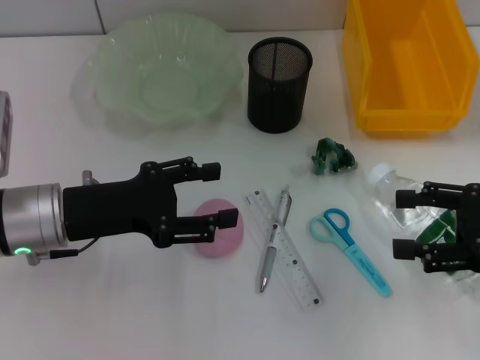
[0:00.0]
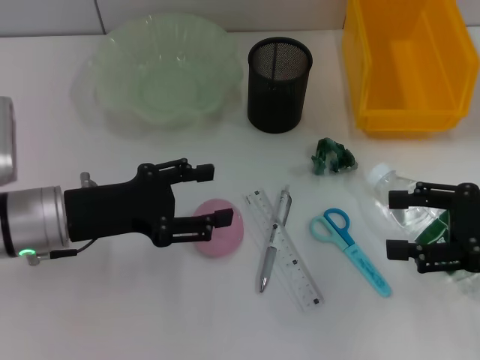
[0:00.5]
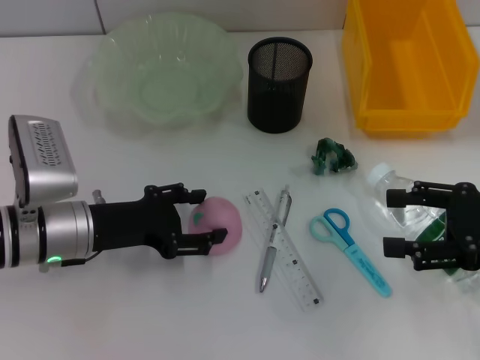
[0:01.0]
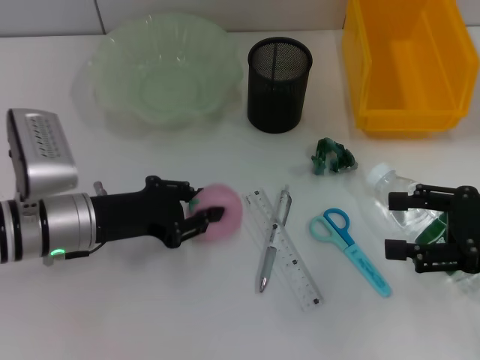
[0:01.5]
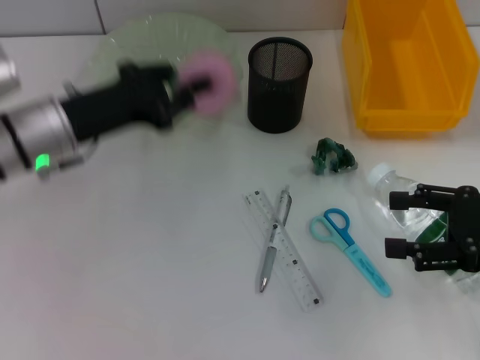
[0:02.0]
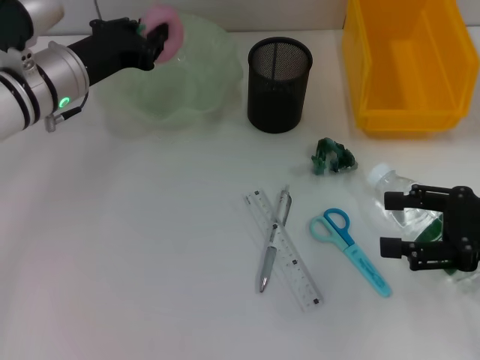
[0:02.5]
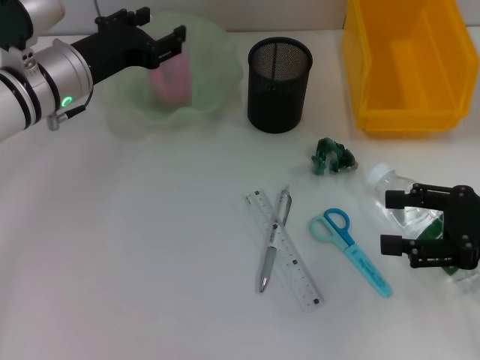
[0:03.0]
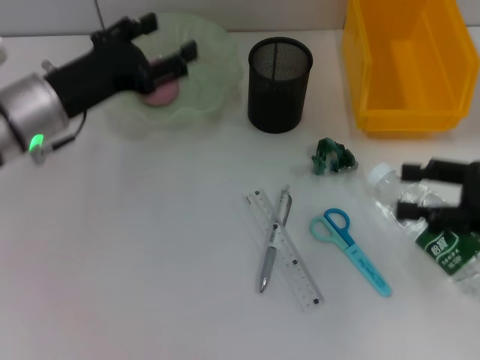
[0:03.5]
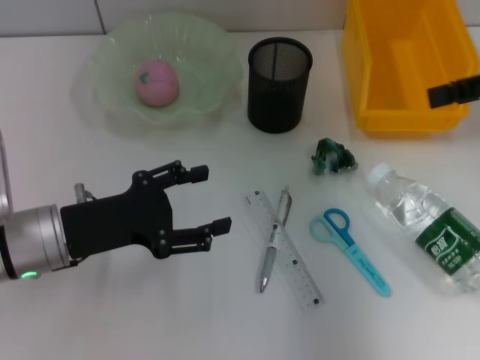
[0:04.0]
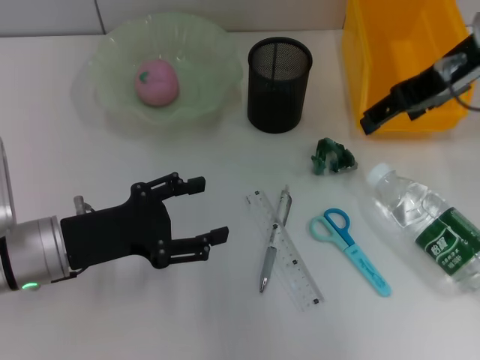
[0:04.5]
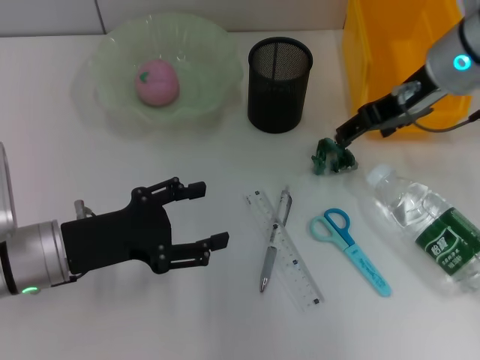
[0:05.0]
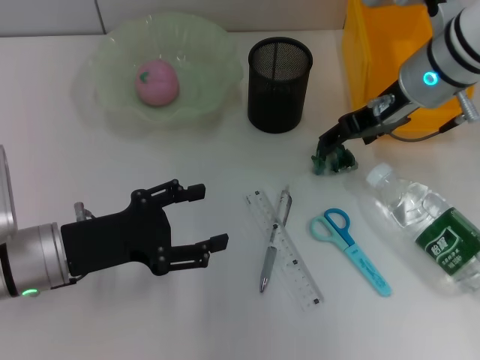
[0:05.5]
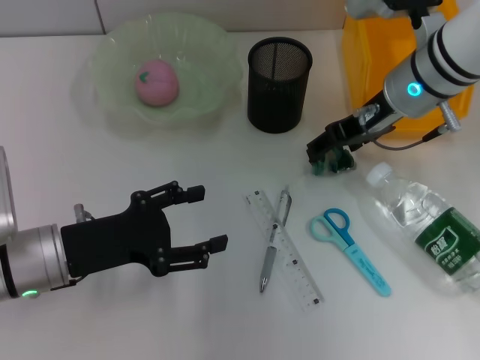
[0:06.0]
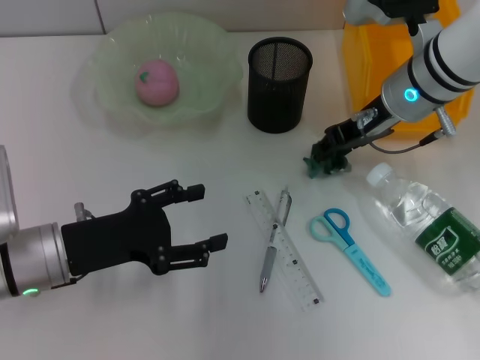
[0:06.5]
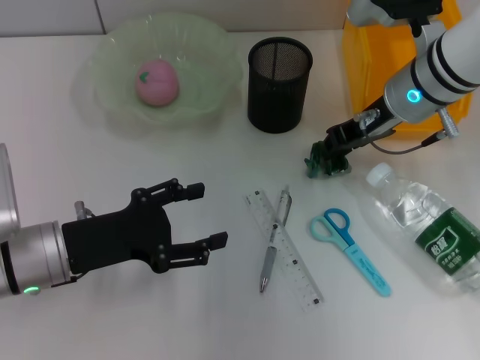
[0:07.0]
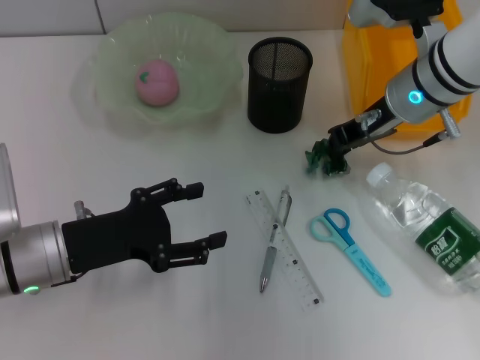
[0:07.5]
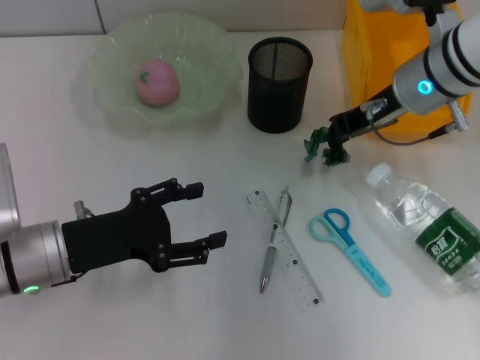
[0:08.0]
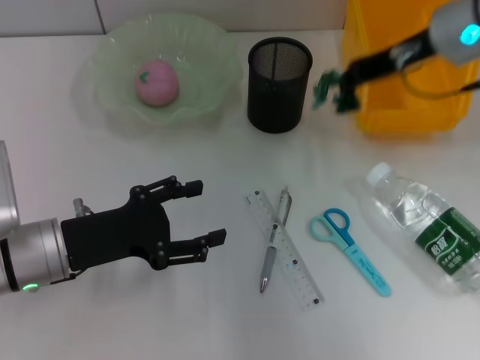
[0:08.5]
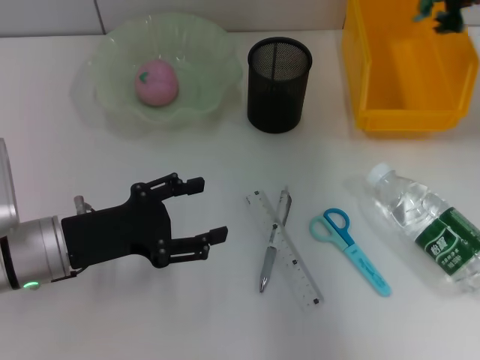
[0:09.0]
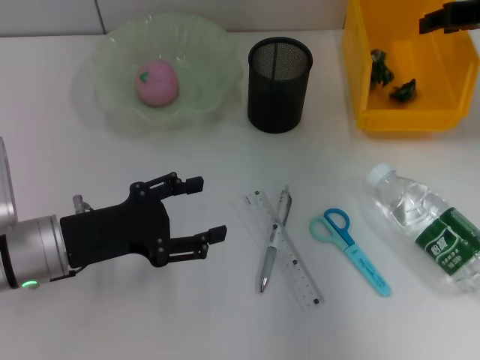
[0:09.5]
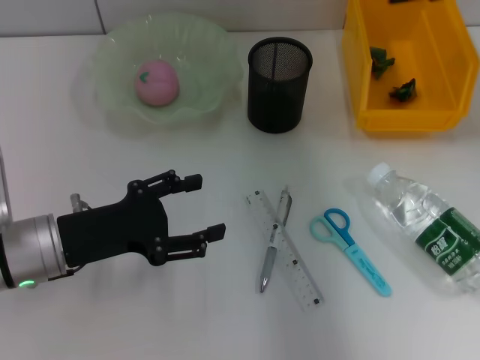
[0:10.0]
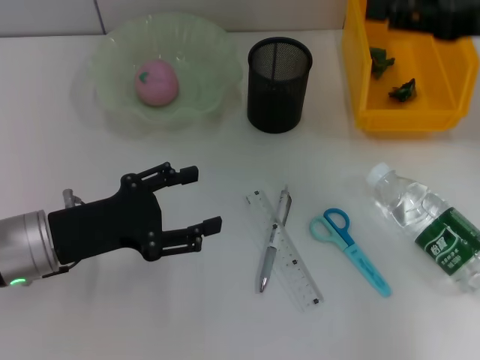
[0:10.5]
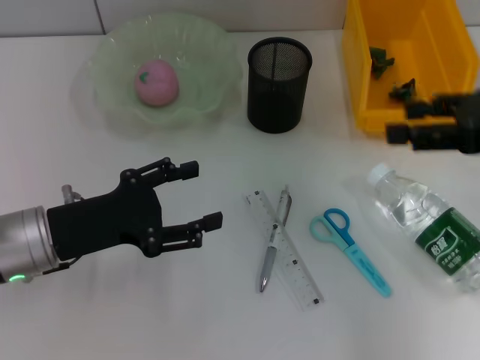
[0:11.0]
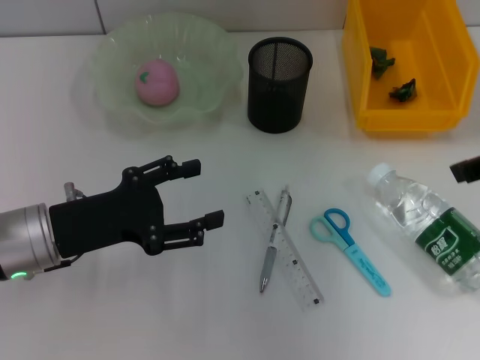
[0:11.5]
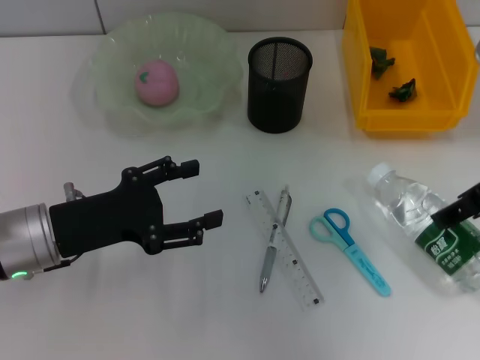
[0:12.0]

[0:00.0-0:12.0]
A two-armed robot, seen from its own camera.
Step, 0:00.0 to 0:01.0: Grab the peach with the left hand.
Step, 0:01.5 to 0:03.0: Place the peach into the fruit bowl with the left hand.
Step, 0:03.5 to 0:06.5: Grab the plastic with the right hand.
Step, 0:07.0 to 0:09.5: Place the plastic into the trash can with the right hand.
0:00.0 to 0:02.0: The left gripper closes up.
0:02.0 to 0:04.0: The right gripper moves upward and forward, some 15 cm, while the left gripper heads backward, covering some 5 cm, and opens up.
0:04.0 to 0:06.0: The right gripper moves to the left, downward and forward, some 20 cm.
0:06.0 to 0:08.0: The right gripper closes its fingers.
0:08.0 to 0:10.0: The right gripper heads upward and to the right, covering approximately 15 cm, and opens up.
0:10.0 to 0:12.0: The right gripper travels backward by approximately 10 cm.

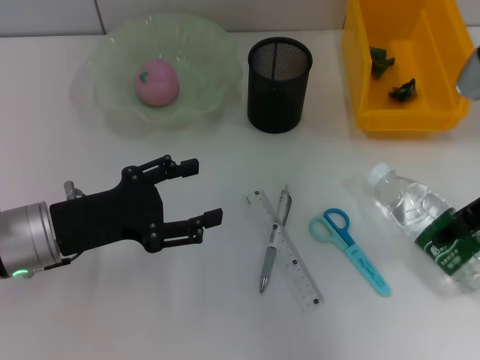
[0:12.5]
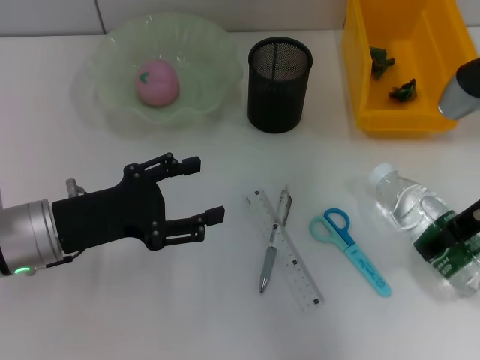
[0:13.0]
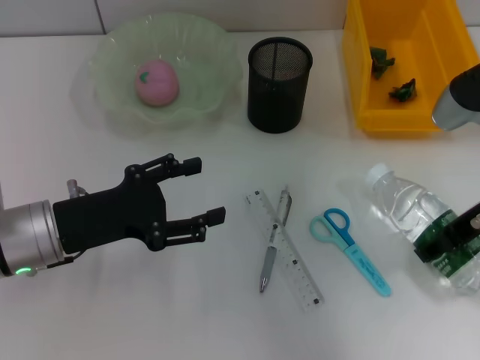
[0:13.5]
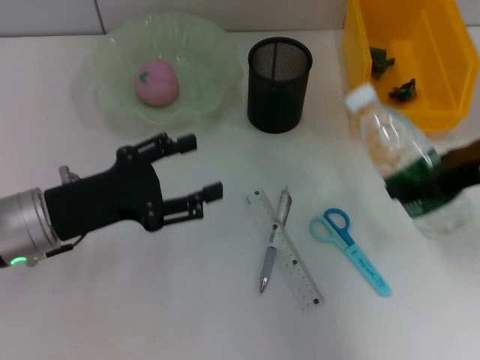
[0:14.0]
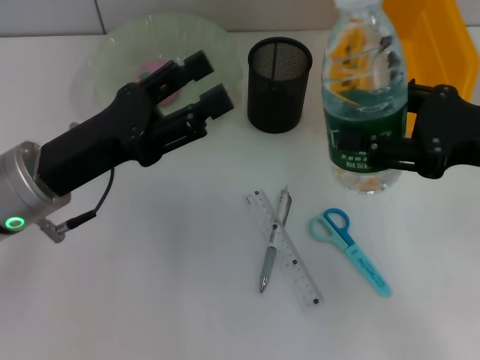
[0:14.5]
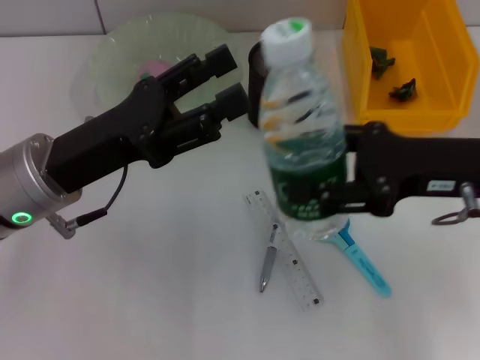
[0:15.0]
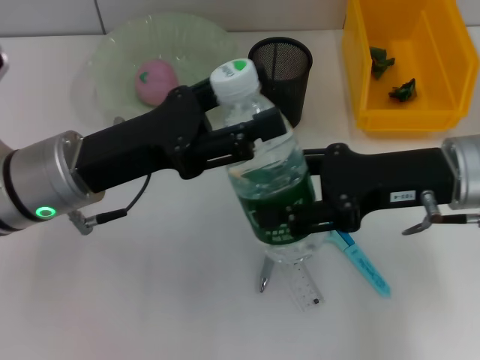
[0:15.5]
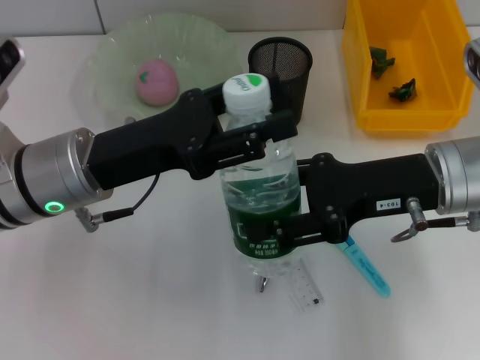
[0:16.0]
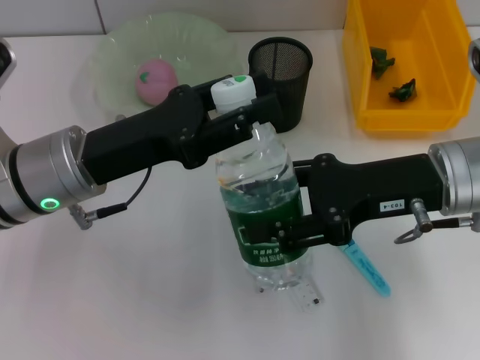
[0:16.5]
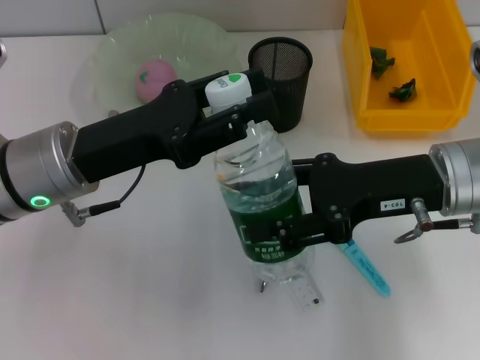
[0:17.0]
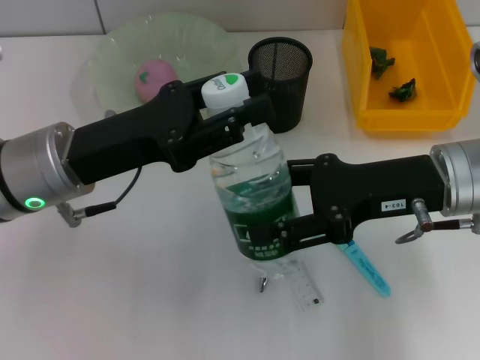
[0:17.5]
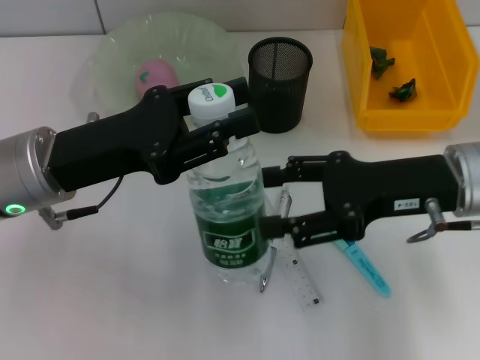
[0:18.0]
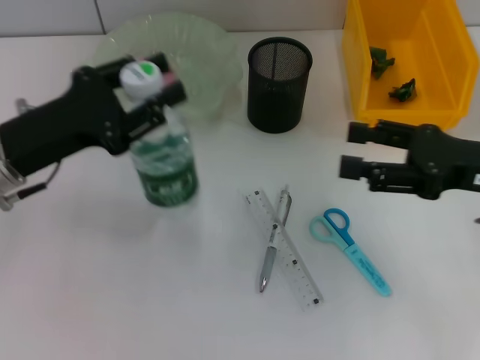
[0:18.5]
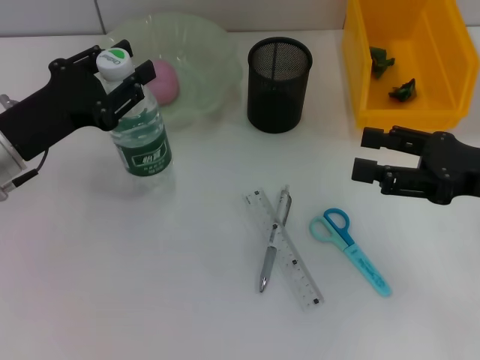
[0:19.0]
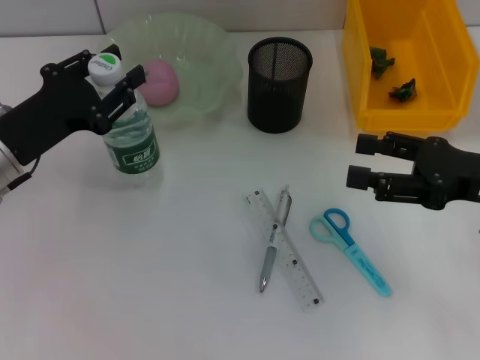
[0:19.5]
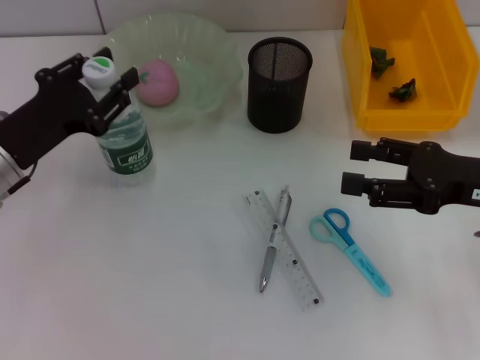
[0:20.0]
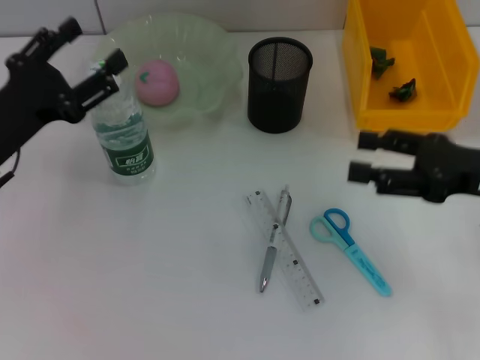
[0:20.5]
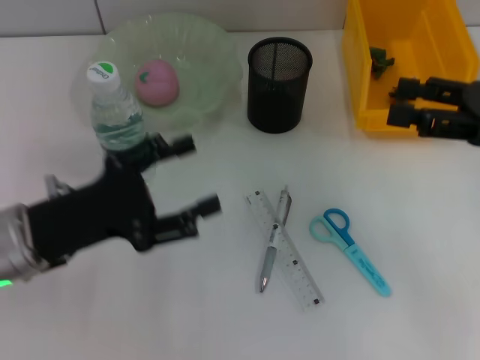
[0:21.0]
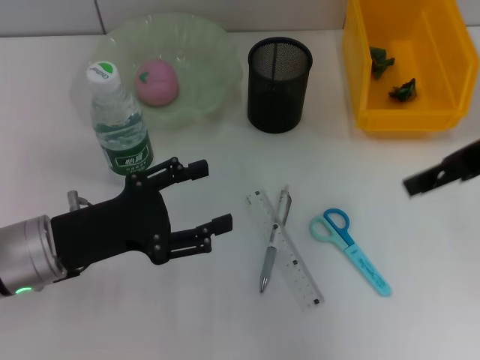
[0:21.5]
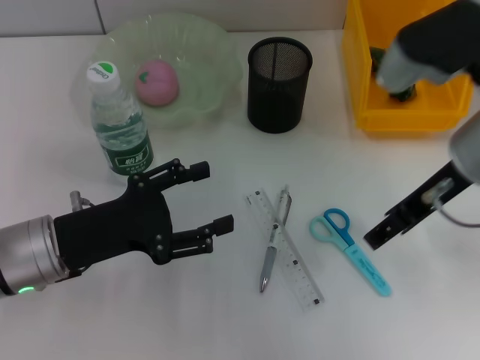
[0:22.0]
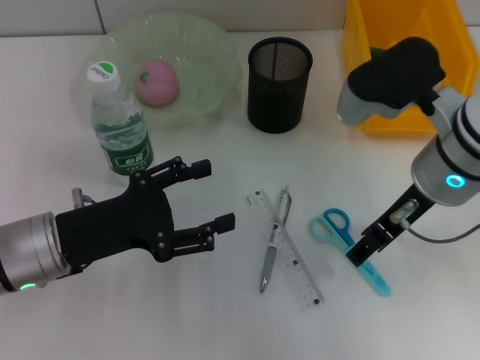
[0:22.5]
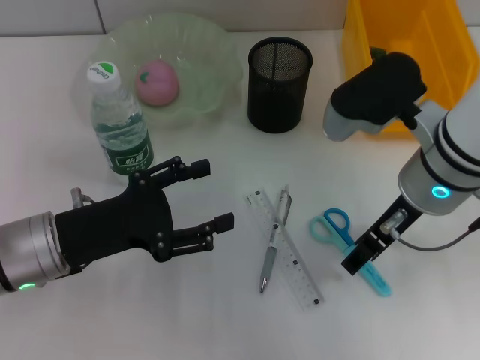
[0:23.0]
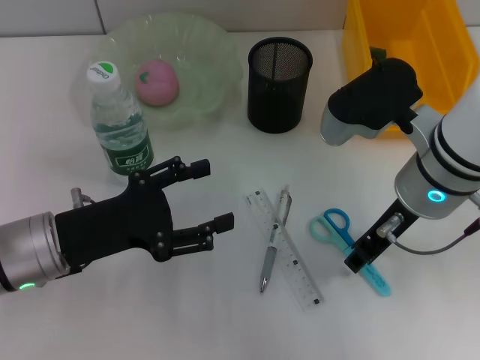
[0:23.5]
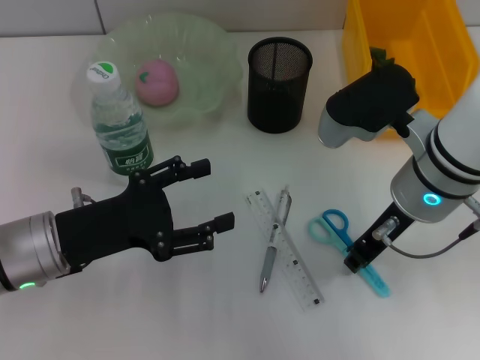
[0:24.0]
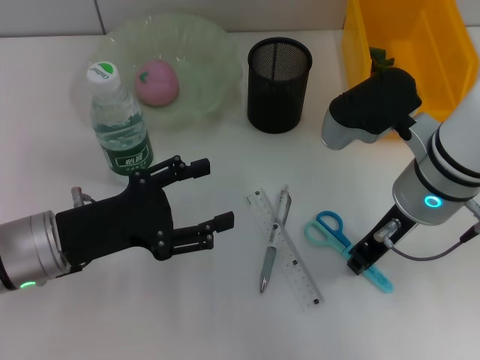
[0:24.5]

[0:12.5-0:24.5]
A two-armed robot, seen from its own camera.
Step, 0:14.0 to 0:17.5: Pass the water bottle from the right hand to the left hand.
Step, 0:18.0 to 0:20.0: Place the water bottle on the table with the left hand.
0:14.5 to 0:16.5: The right gripper moves to the left, approximately 5 cm, while the left gripper closes its fingers.
0:16.5 to 0:18.5: The right gripper travels to the right by approximately 10 cm; the left gripper heads to the left, covering approximately 5 cm.
0:18.5 to 0:20.5: The left gripper opens its fingers.
0:20.5 to 0:22.5: The left gripper moves approximately 5 cm. The right gripper travels to the left by approximately 15 cm.
0:22.5 to 0:24.5: The right gripper closes up.

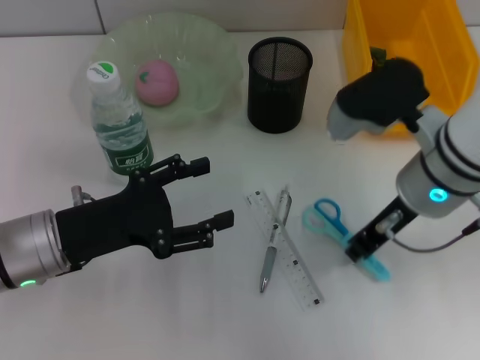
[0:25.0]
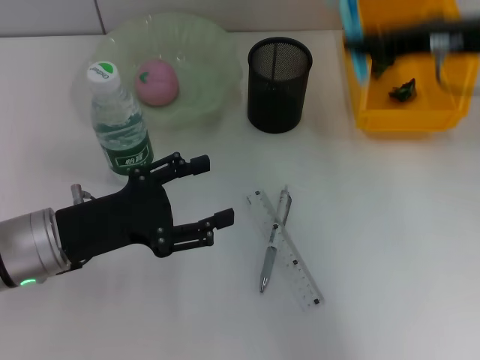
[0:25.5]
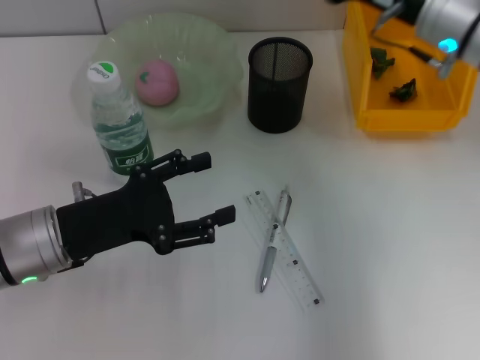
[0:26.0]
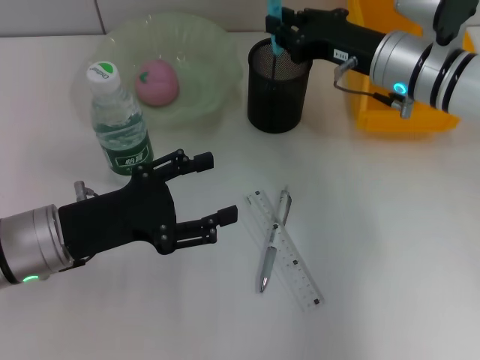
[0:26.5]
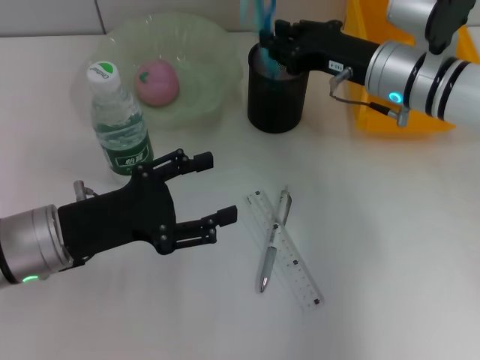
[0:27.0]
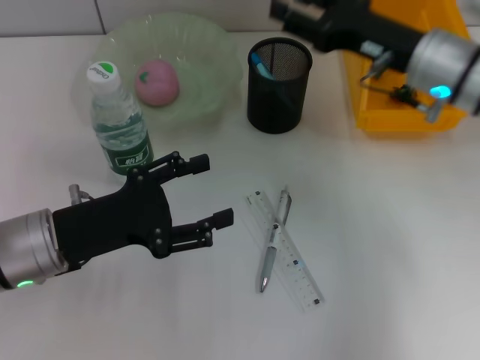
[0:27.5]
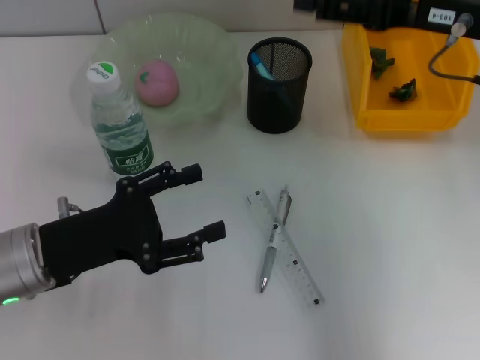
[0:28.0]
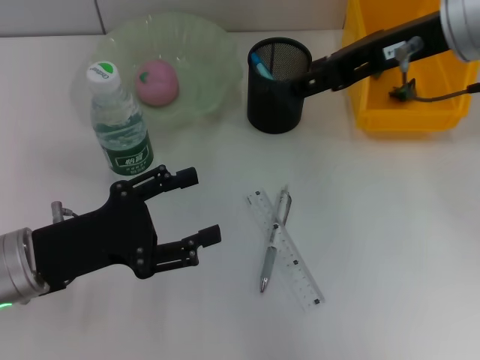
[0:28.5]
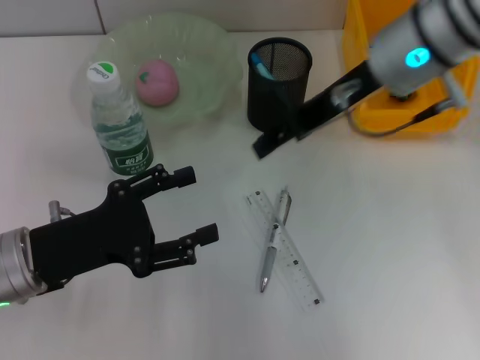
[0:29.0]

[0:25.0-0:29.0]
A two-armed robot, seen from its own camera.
Step, 0:25.0 to 0:27.0: Place the blue scissors into the pen holder with the right hand.
0:25.0 to 0:27.0: The right gripper is displaced forward by about 10 cm, and moves roughly 10 cm upward and comes back.
0:27.0 to 0:29.0: The right gripper goes approximately 10 cm upward, and opens up.
